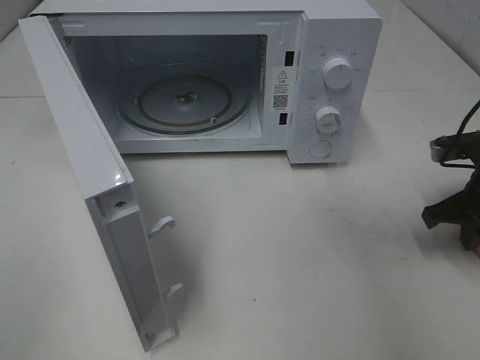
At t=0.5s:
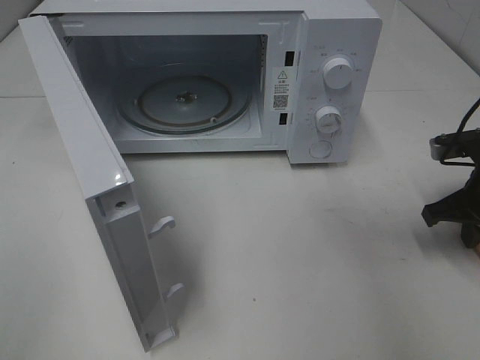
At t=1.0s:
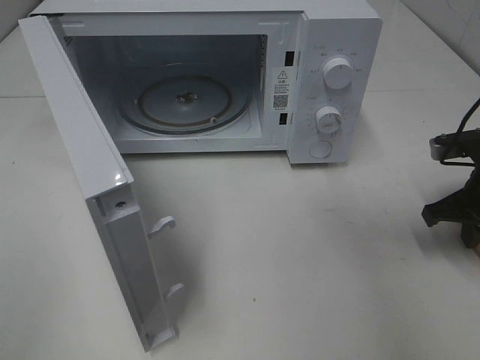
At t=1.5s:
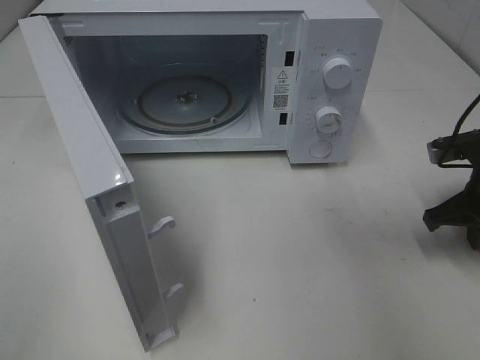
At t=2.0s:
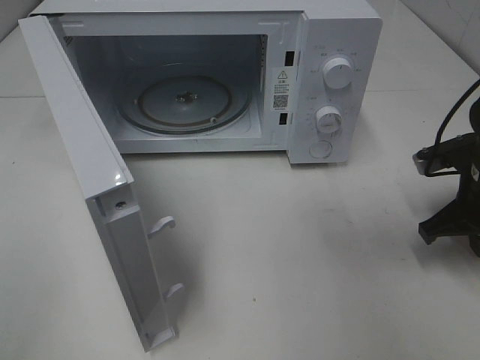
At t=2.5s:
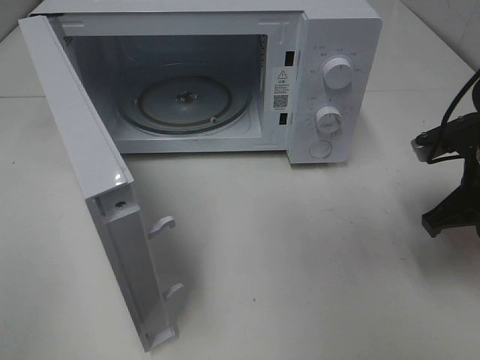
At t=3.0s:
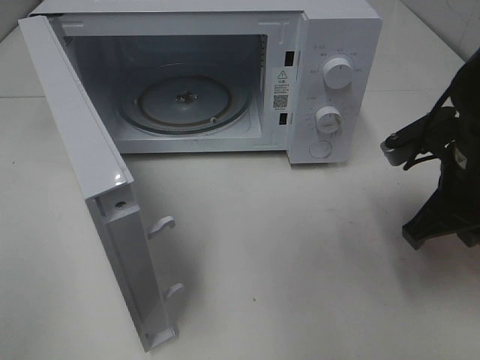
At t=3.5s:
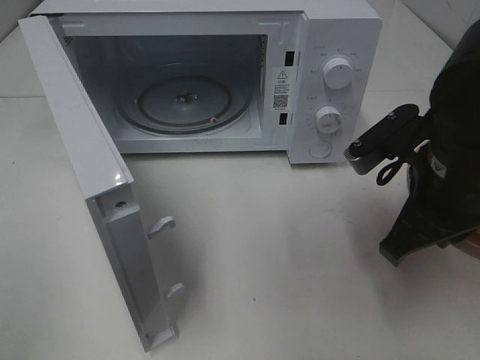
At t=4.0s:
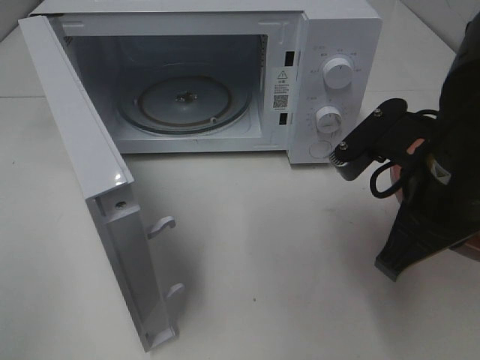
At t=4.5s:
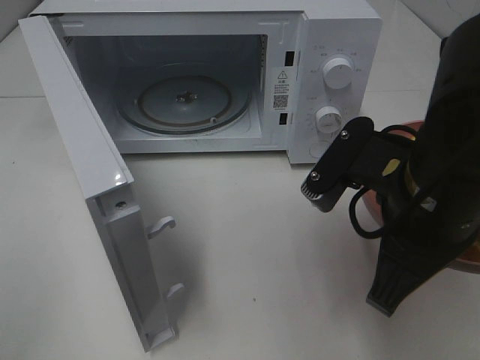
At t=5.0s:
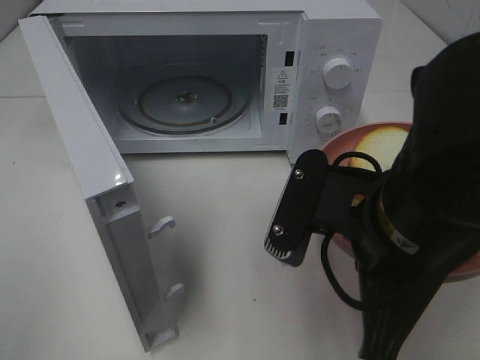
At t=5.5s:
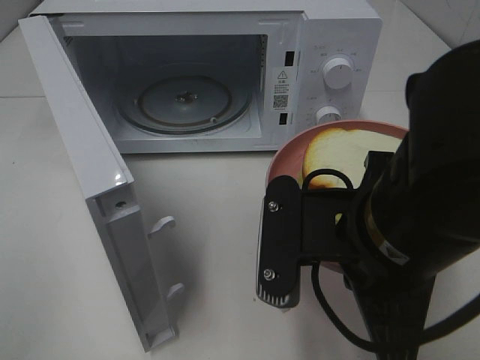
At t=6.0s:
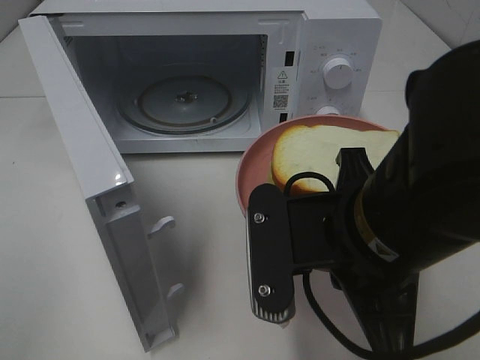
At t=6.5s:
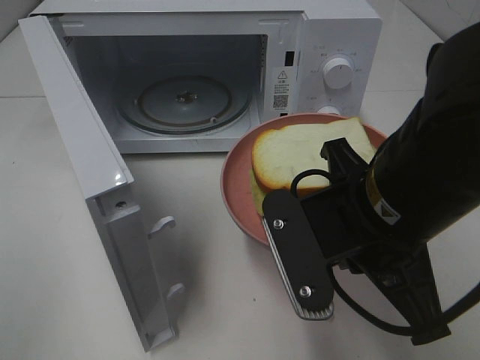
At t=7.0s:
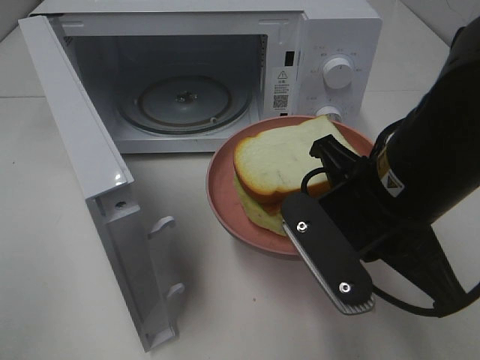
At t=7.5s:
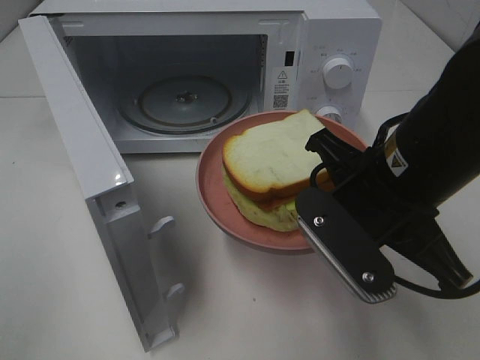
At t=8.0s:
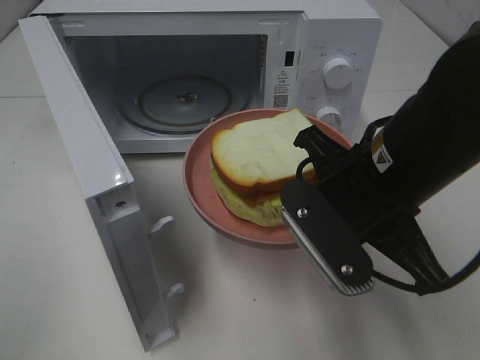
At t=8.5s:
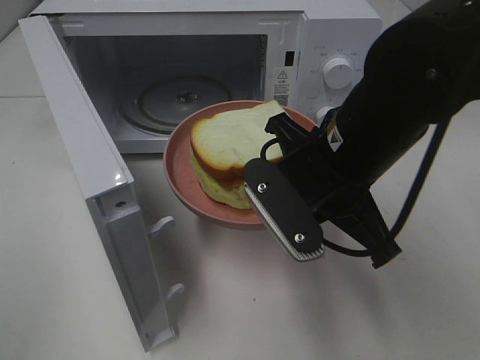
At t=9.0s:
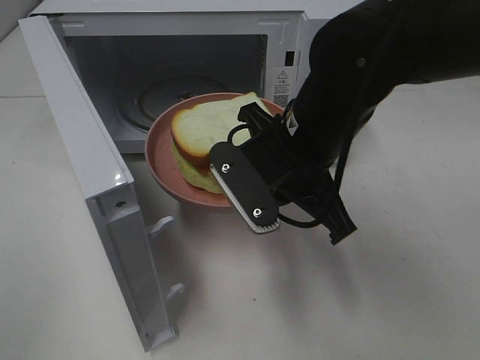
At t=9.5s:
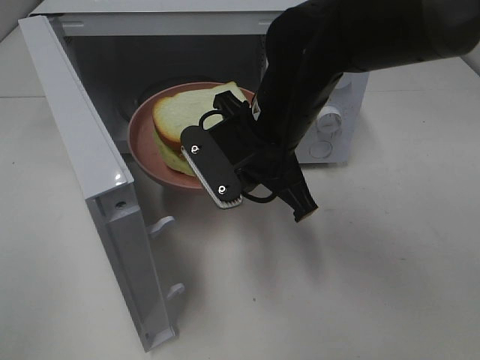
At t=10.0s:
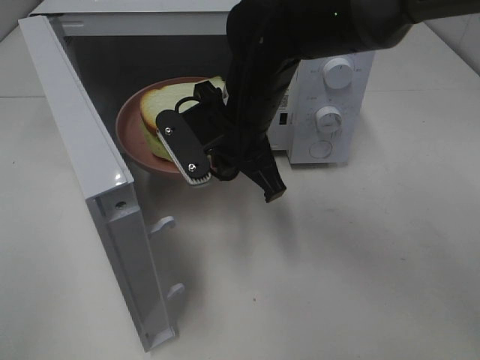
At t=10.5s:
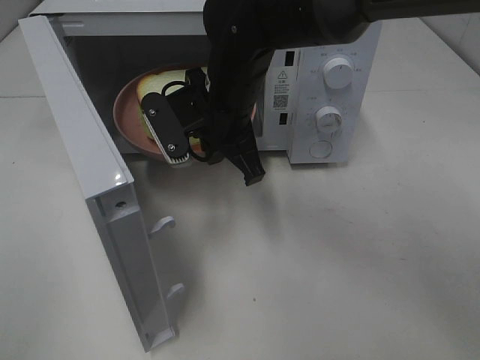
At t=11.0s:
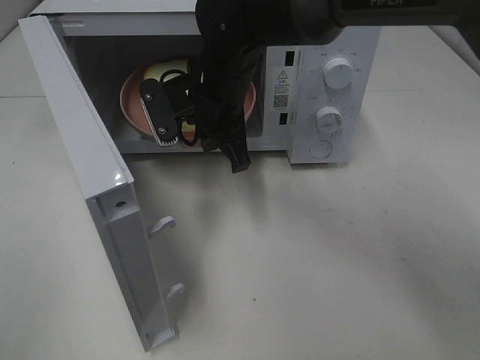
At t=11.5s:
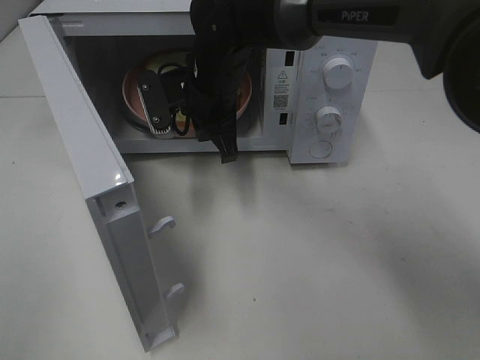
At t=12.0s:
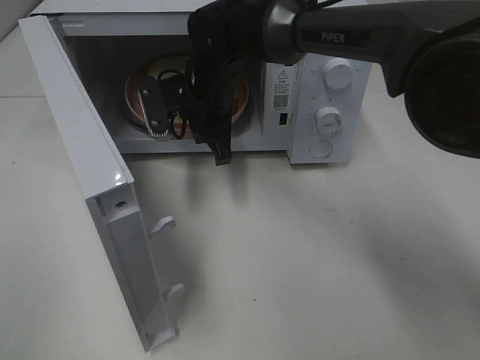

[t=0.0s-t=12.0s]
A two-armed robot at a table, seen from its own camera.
Task of the whole recording: Heat Sandwich.
t=0.0s to t=2.0s: The grippers stay close to where they were, moving slightly.
t=2.0s to t=4.0s: The right gripper is displaced to the left, upward and backward by roughly 20 cm.
t=4.0s to t=6.0s: The right gripper shifts some 10 cm to the left and backward.
t=6.0s to t=8.0s: The right gripper is displaced forward by about 5 cm.
t=8.0s to t=10.0s: The right gripper shifts some 15 cm forward and to the left.
t=10.0s to t=12.0s: The right gripper goes some 10 cm forward.

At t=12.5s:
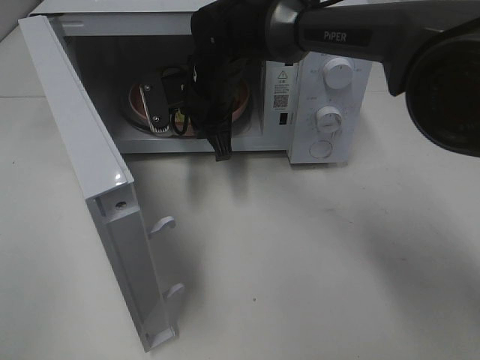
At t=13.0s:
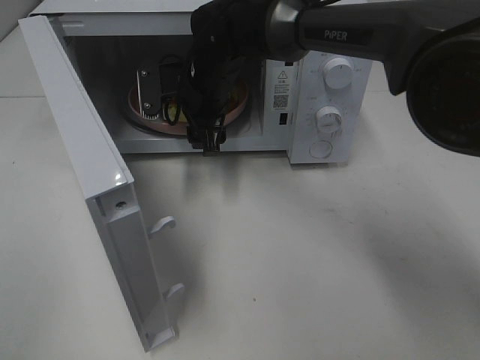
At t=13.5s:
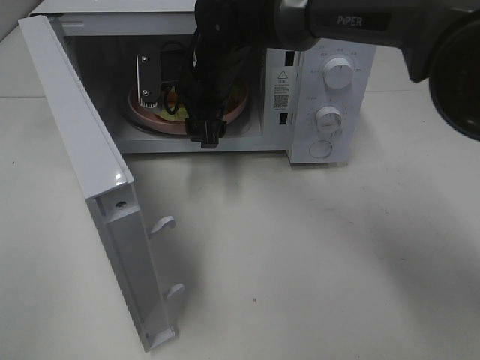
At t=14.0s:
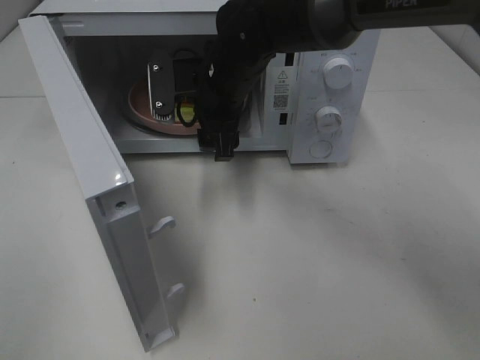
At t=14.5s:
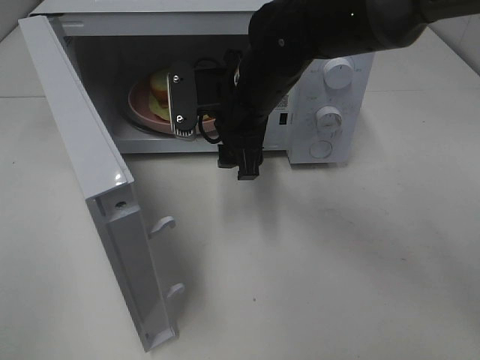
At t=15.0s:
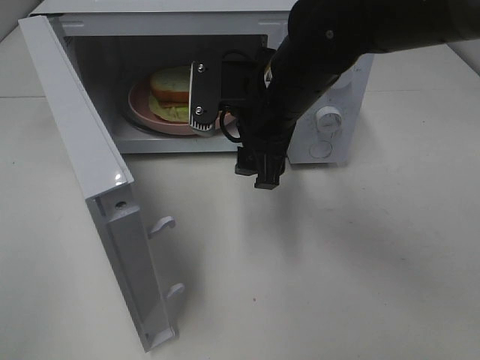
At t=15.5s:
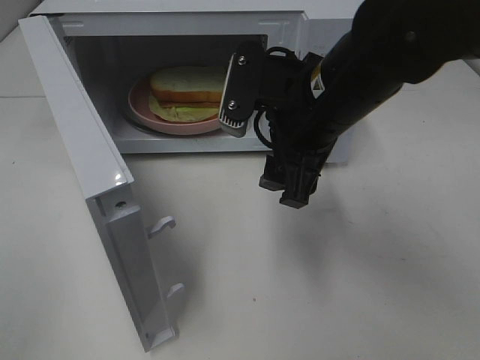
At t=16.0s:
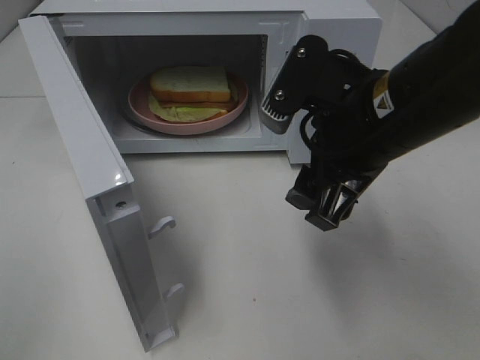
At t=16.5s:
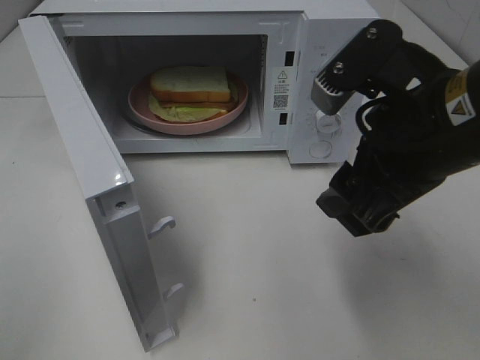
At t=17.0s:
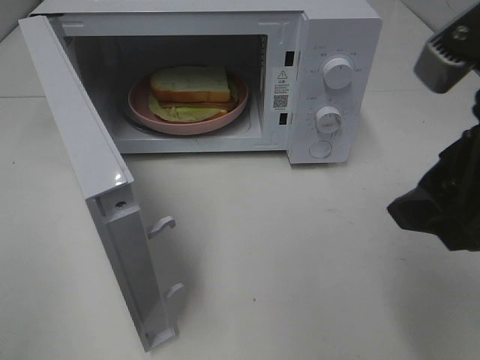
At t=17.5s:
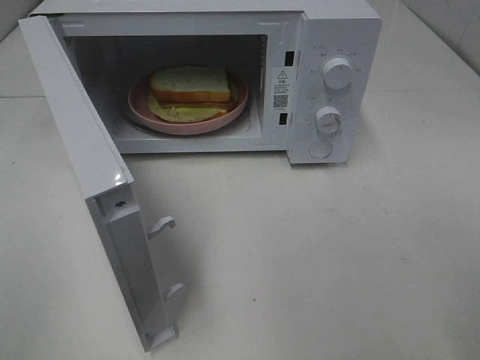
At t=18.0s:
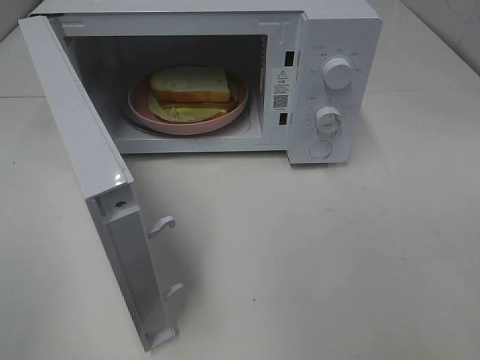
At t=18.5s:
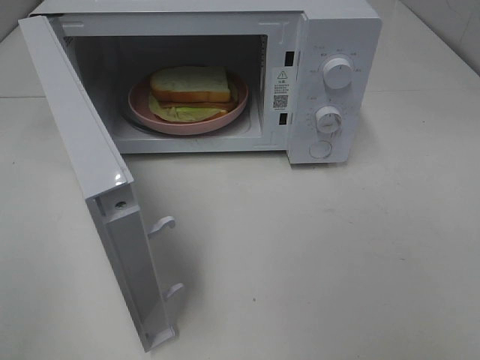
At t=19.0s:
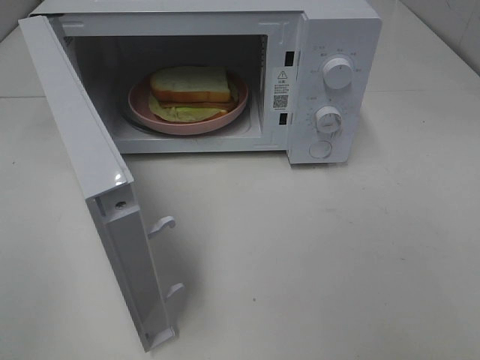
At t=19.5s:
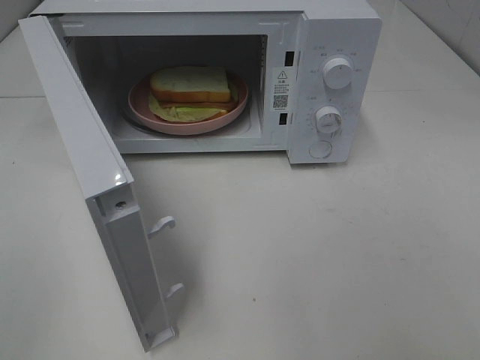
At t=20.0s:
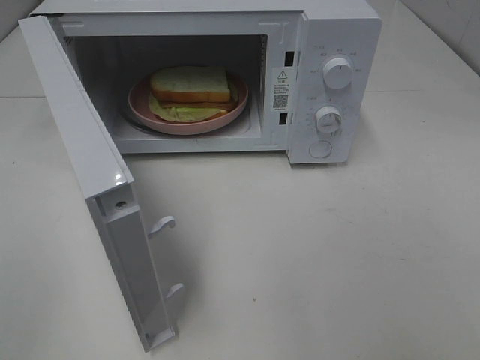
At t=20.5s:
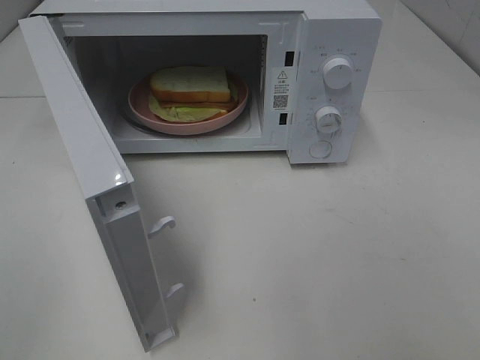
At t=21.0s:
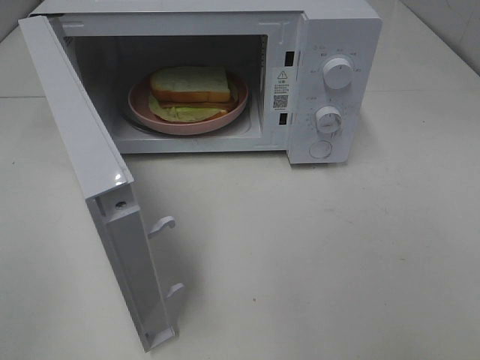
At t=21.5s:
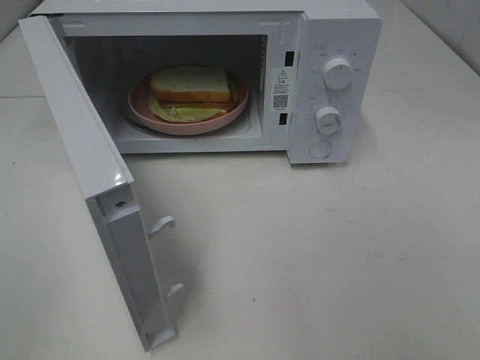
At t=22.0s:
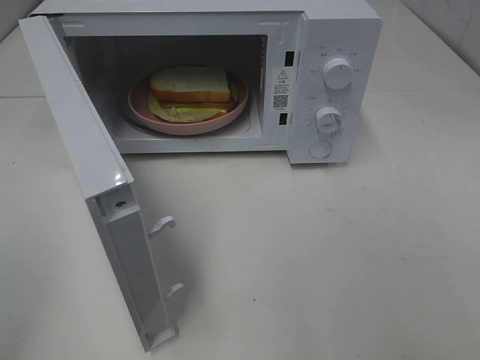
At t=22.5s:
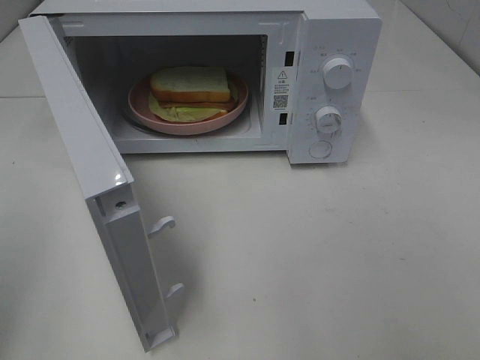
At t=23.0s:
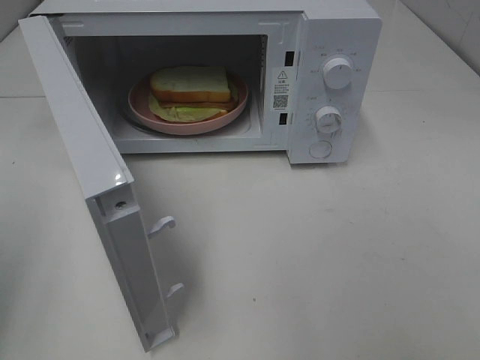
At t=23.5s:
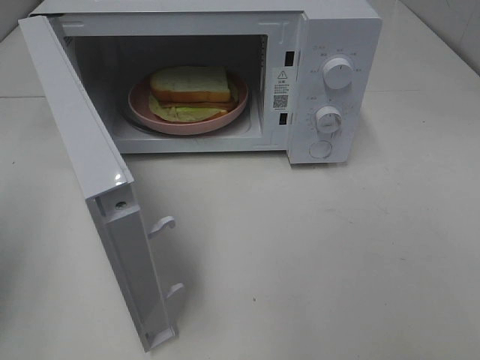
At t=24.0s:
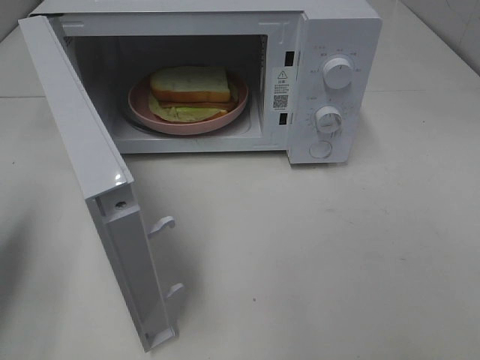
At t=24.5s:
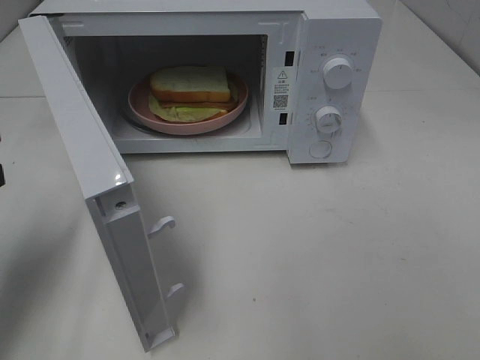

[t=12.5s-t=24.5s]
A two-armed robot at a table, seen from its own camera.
Task of the whole recording: Heat Sandwich.
t=12.5s to t=14.5s: The right gripper shifts about 10 cm backward, and opens up.
t=14.5s to t=16.5s: The right gripper travels backward, to the right and upward by roughly 20 cm.
t=16.5s to t=18.5s: The right gripper is displaced backward, to the right and upward by some 20 cm.
t=22.5s to t=24.5s: The left gripper goes approximately 15 cm forward and downward.

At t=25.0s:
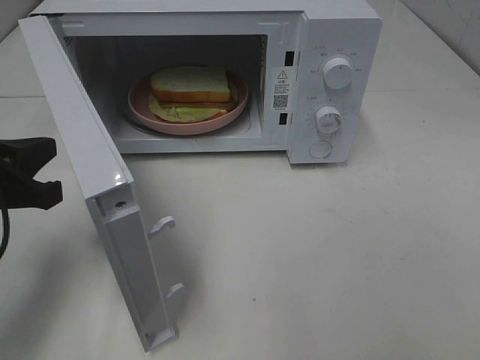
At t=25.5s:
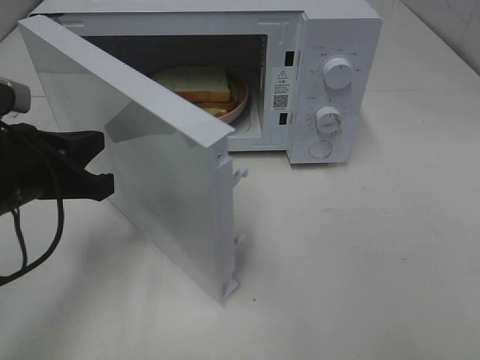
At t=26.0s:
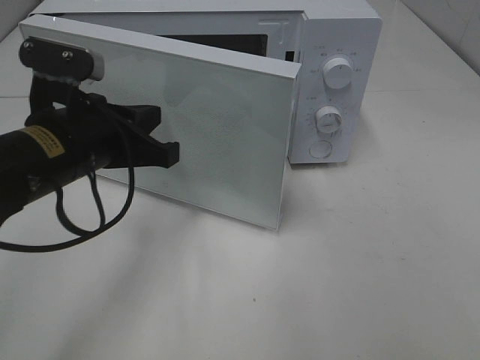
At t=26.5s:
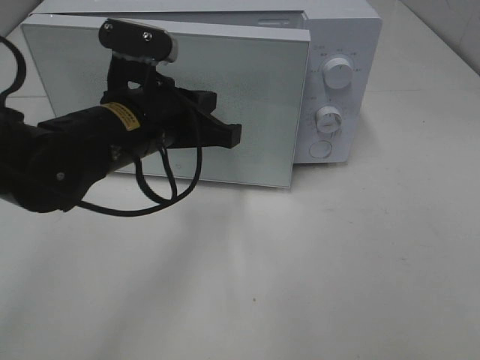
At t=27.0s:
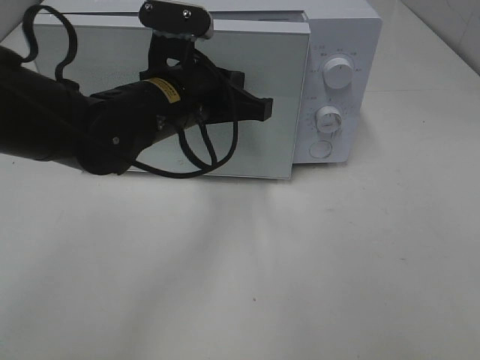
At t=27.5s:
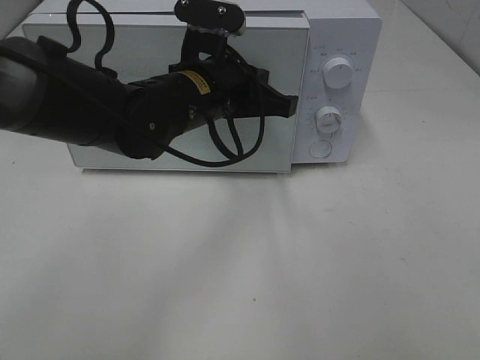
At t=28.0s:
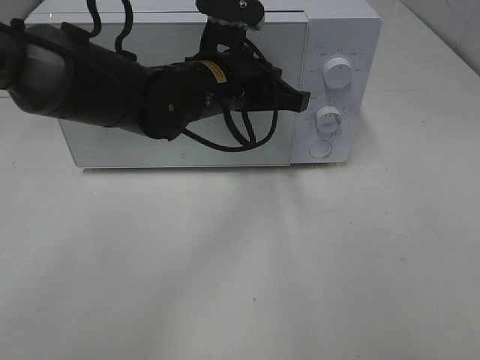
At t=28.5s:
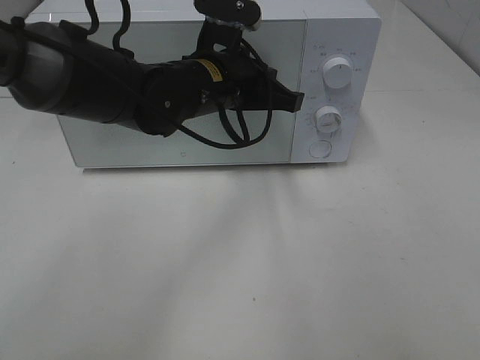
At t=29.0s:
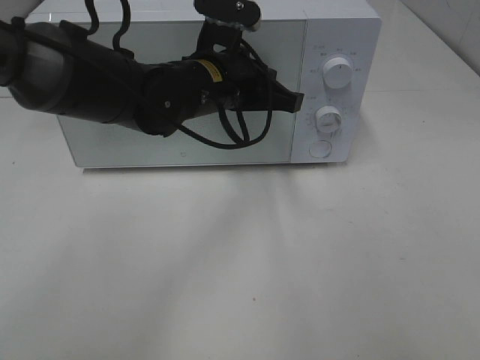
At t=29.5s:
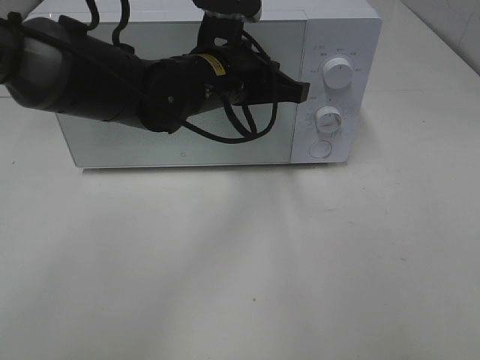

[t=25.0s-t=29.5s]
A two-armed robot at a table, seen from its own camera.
Task of the whole recording: Heat Sandwich.
t=25.0s to t=27.0s: The left gripper heads to the right and forward, covering roughly 20 cm.
t=27.0s to t=29.5s: The left gripper shifts by roughly 5 cm.
